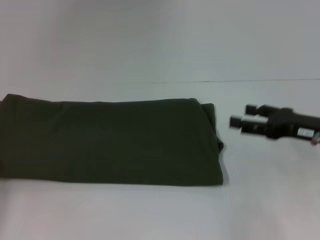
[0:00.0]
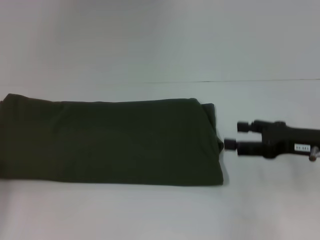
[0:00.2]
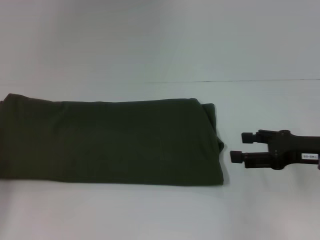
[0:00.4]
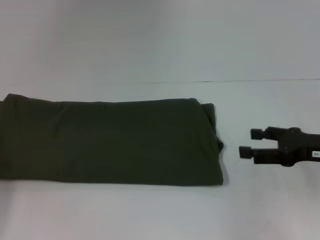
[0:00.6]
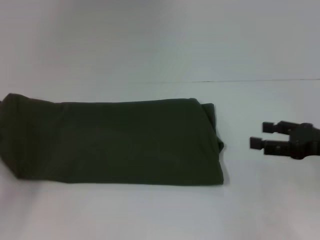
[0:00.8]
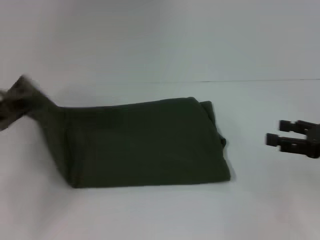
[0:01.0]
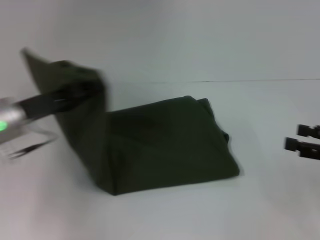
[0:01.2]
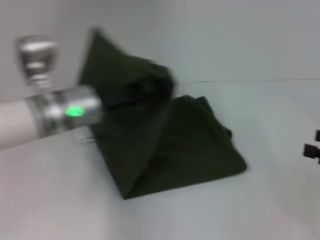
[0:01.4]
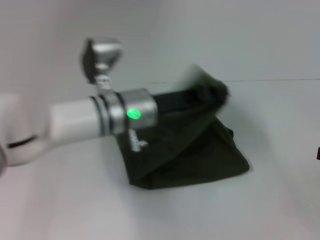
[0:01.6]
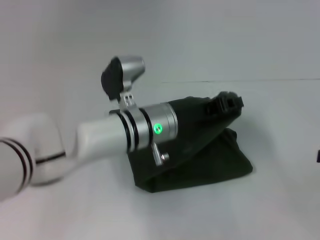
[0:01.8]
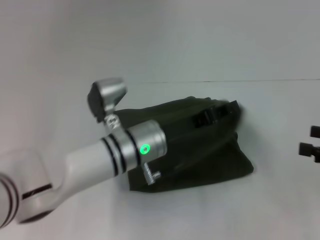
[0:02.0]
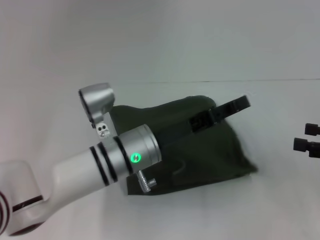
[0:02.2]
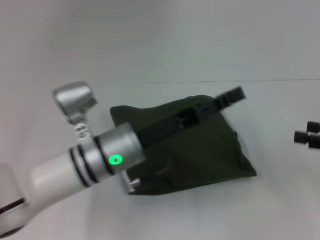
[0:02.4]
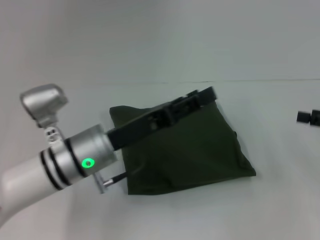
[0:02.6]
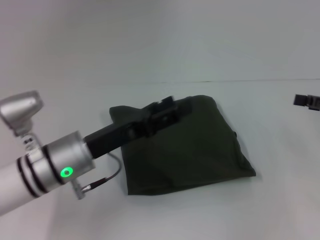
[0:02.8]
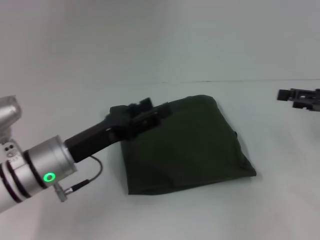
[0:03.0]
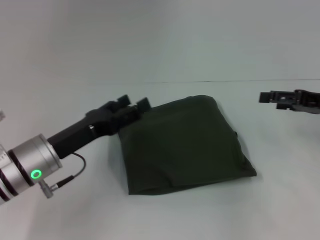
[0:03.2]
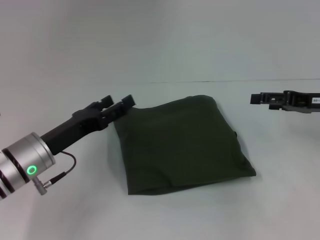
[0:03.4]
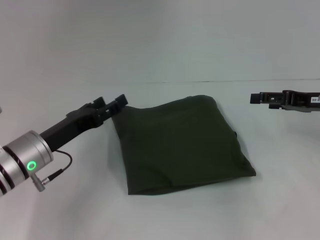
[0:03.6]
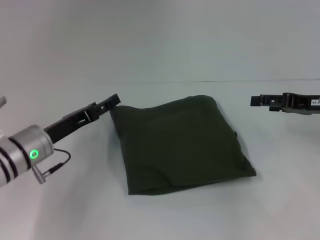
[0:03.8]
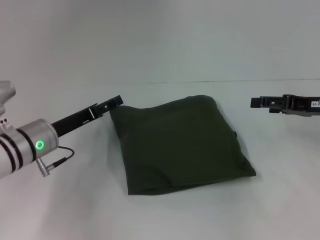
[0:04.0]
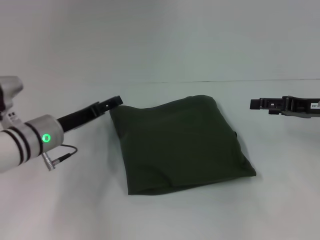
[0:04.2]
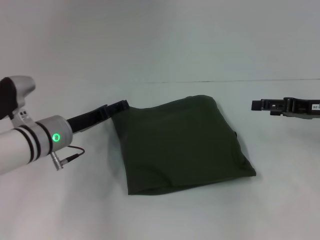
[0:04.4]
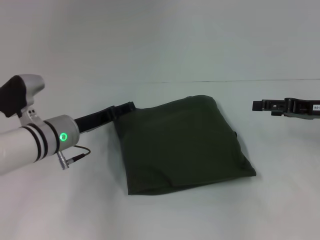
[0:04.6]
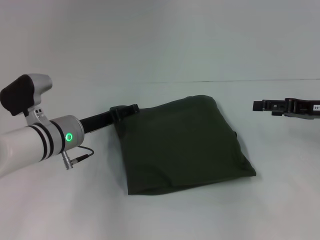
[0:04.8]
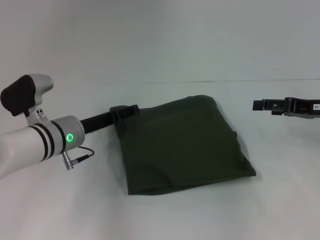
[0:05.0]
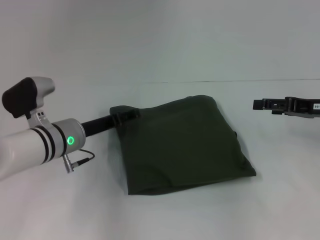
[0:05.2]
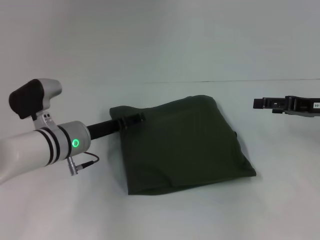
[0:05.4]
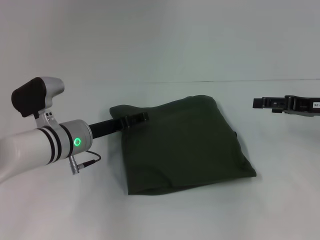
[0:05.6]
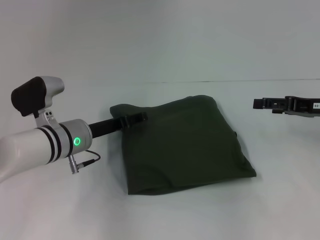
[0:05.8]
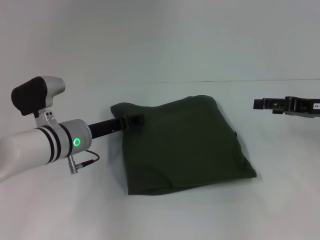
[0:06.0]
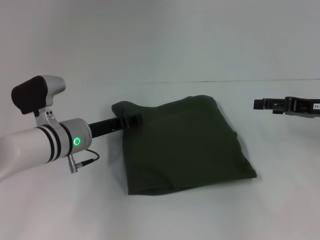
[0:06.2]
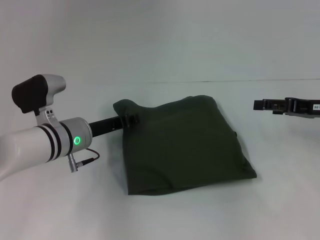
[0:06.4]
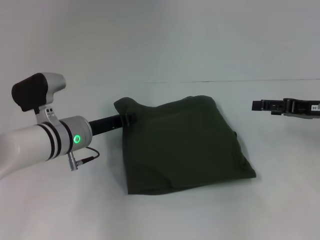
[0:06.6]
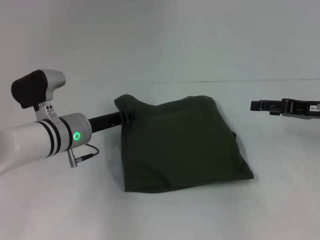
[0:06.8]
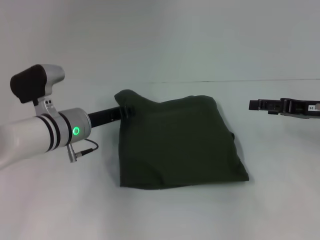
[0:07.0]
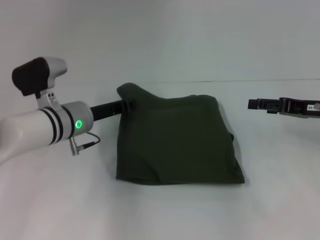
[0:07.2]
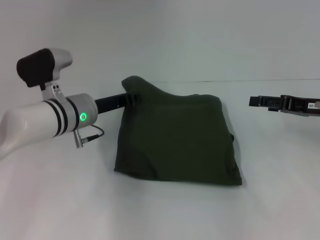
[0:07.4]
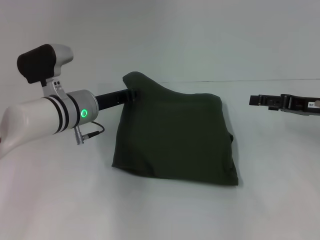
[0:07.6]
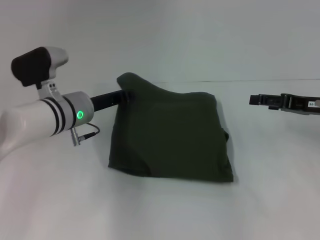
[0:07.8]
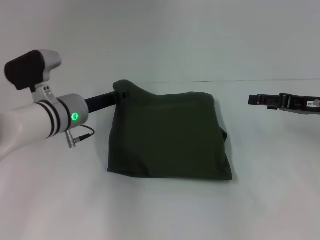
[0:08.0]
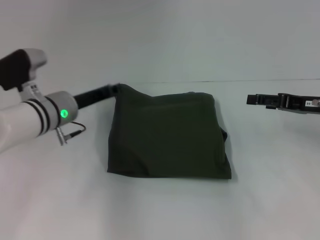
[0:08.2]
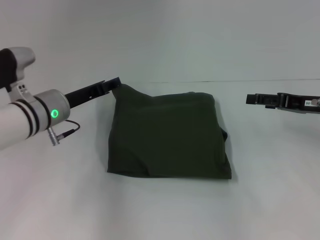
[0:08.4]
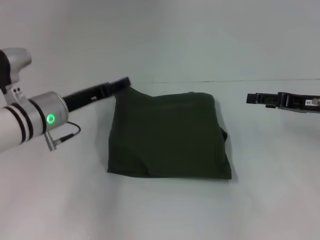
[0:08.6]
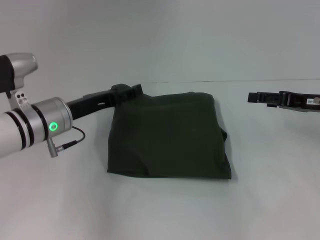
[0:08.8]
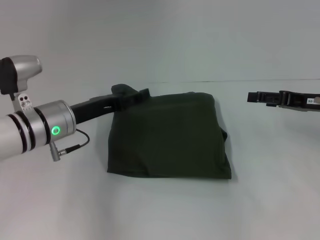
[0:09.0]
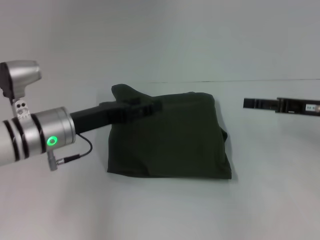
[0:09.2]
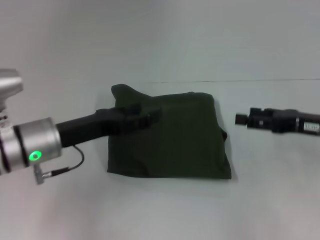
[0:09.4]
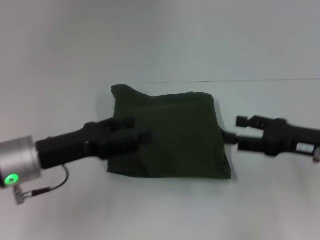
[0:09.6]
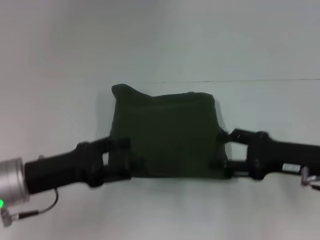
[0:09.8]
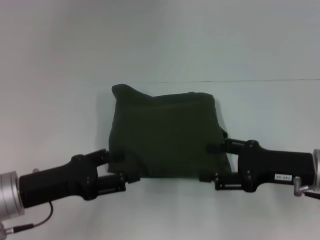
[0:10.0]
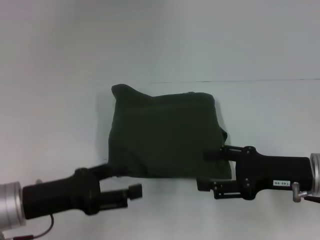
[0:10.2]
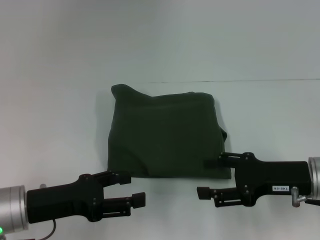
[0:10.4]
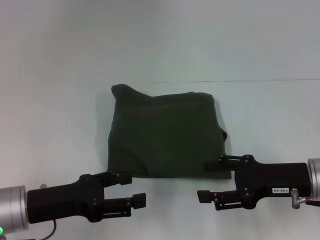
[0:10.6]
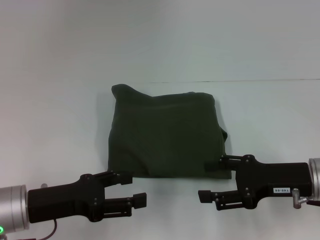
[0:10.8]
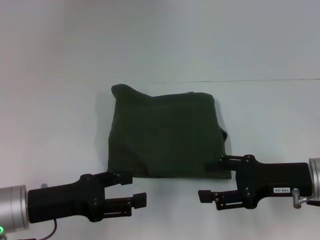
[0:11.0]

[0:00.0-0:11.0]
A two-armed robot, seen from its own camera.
Step, 0:00.0 to 0:02.2: Fold the clothes with your left hand.
0:00.0 to 0:01.6: The right gripper heads to the right and backward, covering some 15 cm. Meanwhile the left gripper heads to the right, covering roughly 30 cm.
0:01.6 to 0:03.2: The right gripper moves forward and to the left, approximately 15 cm. The left gripper moves to the left and backward, roughly 15 cm, and opens.
0:03.2 to 0:04.8: The left gripper is displaced forward by roughly 10 cm.
0:04.8 to 0:06.2: The left gripper closes up.
0:06.2 to 0:07.8: The left gripper closes up.
0:07.8 to 0:09.4: The left gripper moves backward, about 10 cm, and opens up.
0:09.4 to 0:11.0: The right gripper is displaced to the left by approximately 5 cm. Meanwhile the left gripper shifts some 5 cm backward.

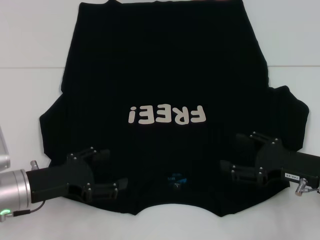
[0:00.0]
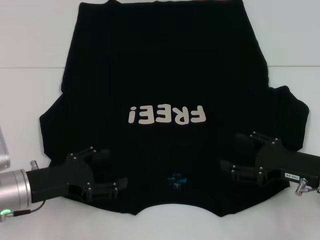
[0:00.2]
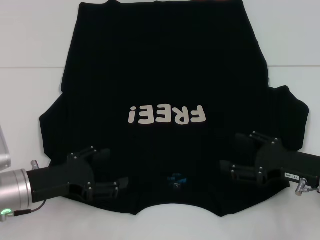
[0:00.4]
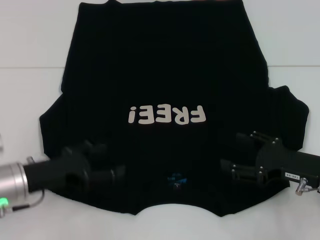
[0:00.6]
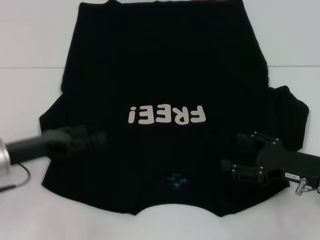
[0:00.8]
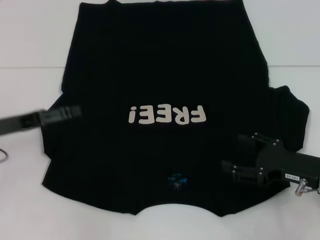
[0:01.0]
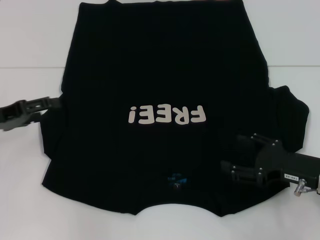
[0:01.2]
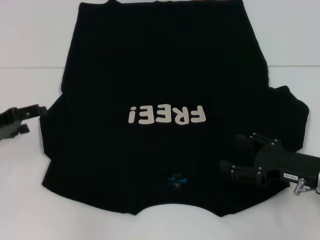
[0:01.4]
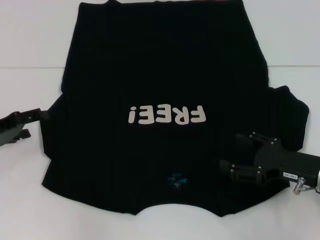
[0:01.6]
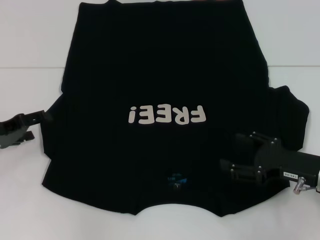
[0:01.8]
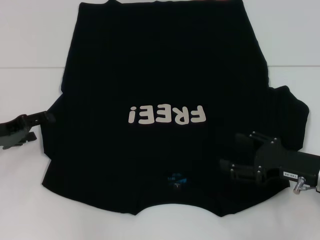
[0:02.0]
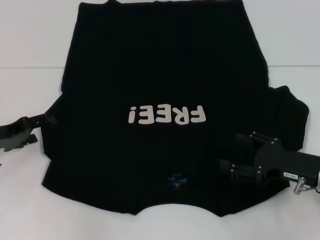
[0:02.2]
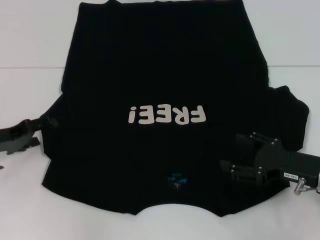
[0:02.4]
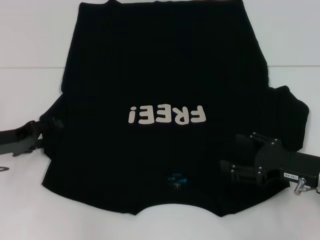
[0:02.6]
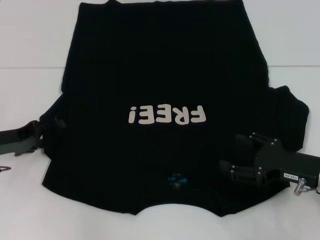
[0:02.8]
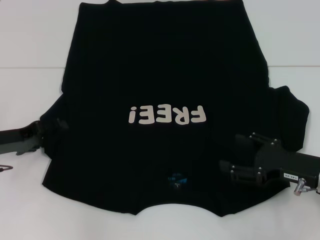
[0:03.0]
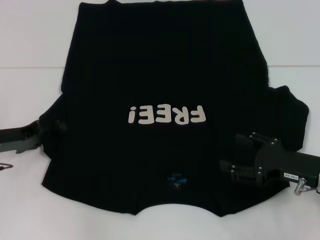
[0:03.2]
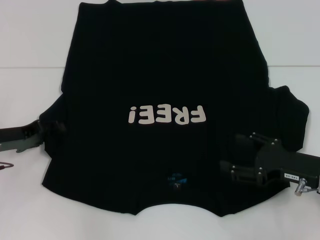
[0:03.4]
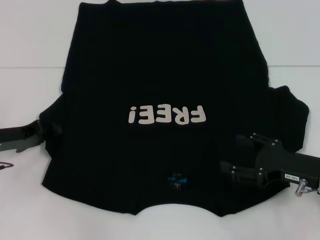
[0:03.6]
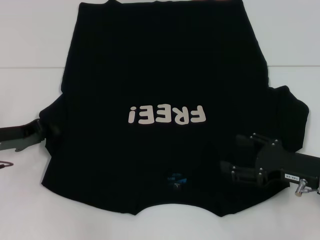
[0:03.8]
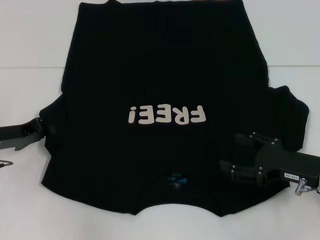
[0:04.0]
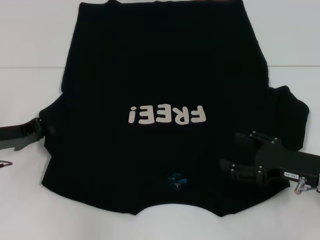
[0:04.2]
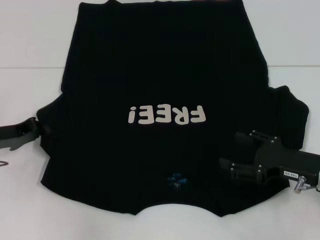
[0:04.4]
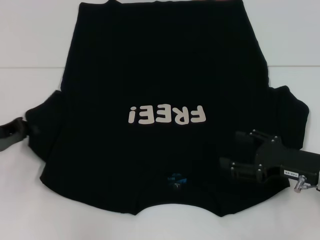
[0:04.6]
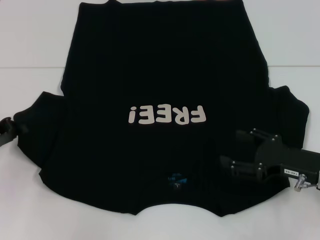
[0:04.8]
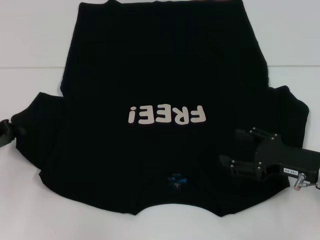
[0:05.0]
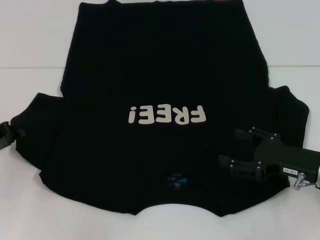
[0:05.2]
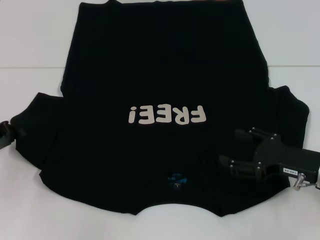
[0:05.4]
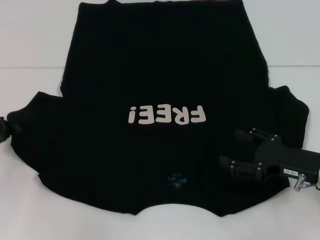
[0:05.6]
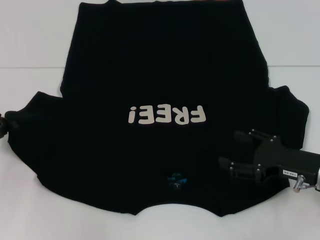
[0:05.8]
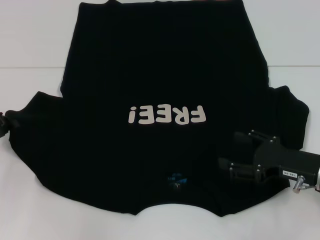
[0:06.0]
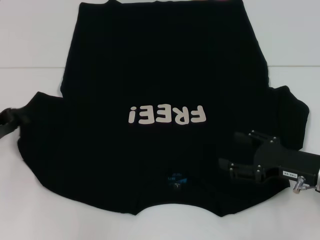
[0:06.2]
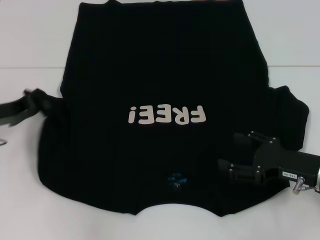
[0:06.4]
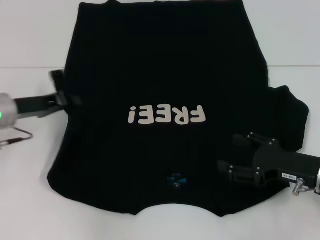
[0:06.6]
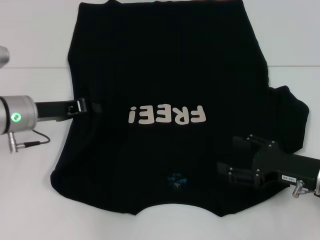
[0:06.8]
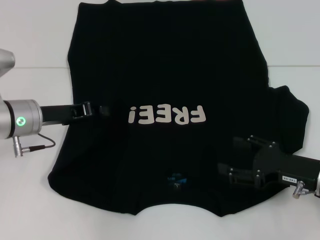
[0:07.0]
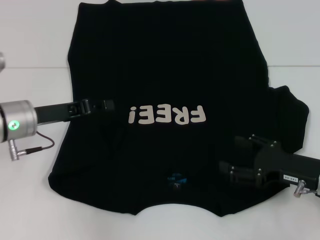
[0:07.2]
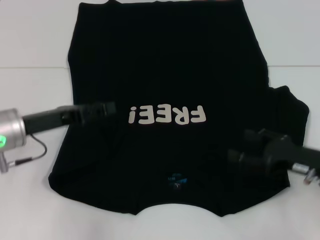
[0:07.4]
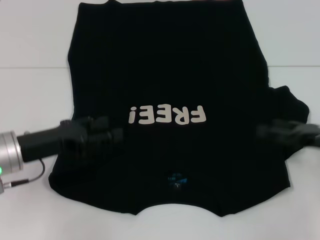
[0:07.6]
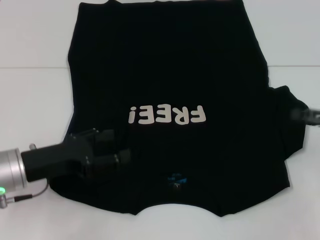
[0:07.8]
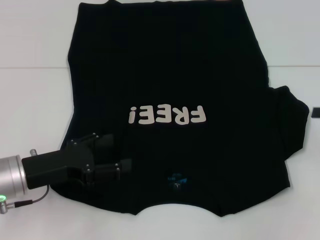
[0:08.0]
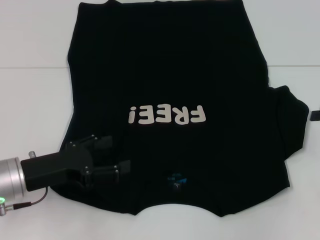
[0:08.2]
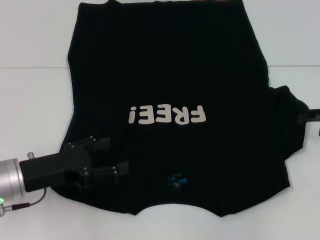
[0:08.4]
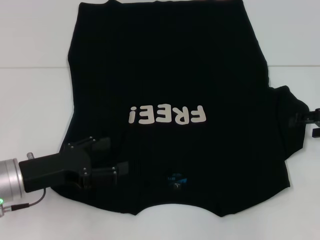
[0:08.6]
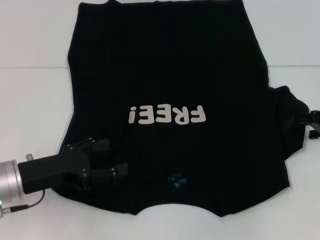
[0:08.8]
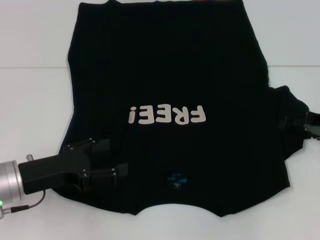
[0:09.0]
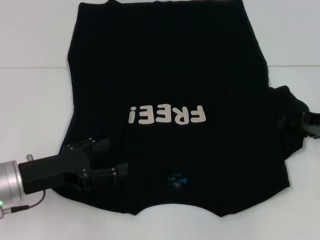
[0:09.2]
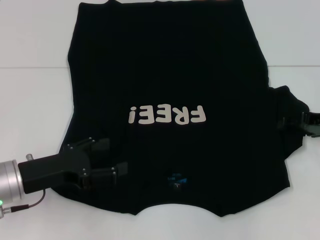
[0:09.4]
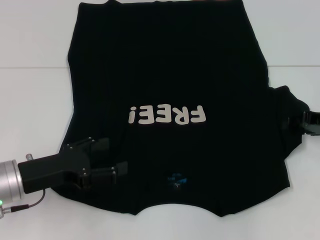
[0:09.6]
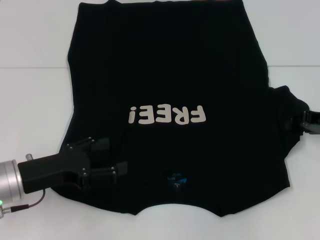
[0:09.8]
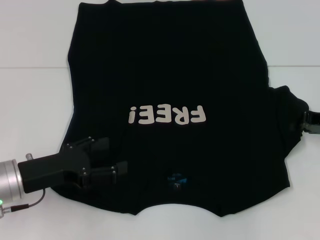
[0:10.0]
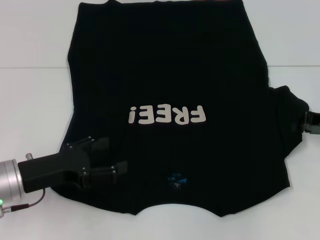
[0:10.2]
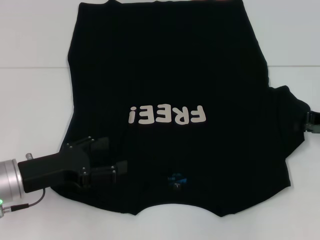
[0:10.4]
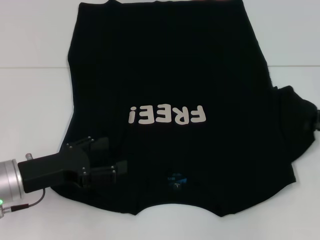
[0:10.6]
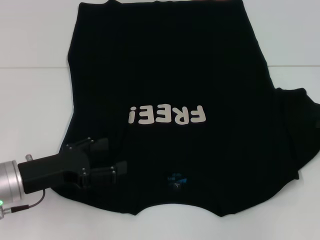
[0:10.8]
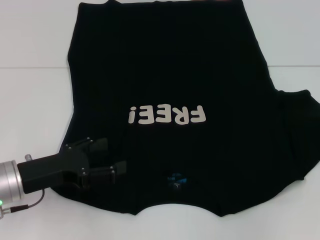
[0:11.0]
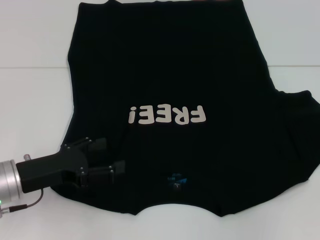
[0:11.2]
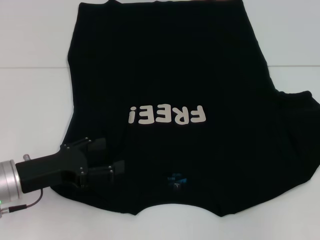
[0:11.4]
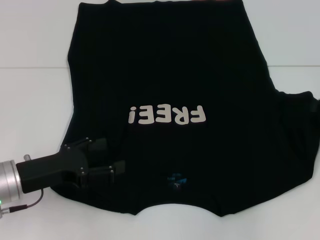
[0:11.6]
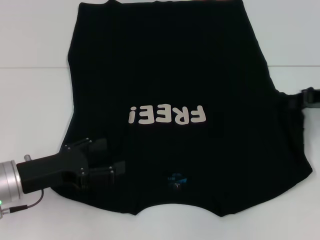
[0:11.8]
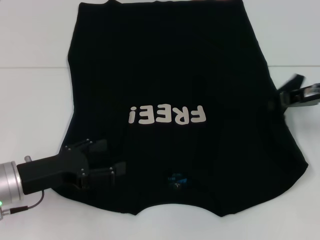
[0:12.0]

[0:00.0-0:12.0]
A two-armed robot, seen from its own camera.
Step, 0:00.0 to 0:07.0: Fold the bottom left sleeve with your left hand.
0:00.0 to 0:01.6: The left gripper travels to the left and forward by approximately 10 cm.
0:01.6 to 0:03.0: The grippers stay close to where they were, moving slightly.
0:03.0 to 0:04.4: The left gripper closes up.
0:04.4 to 0:06.0: The grippers move only a little.
0:06.0 to 0:07.6: The left gripper shifts some 10 cm to the right, and opens up, while the right gripper heads to the right, covering some 5 cm.
0:07.6 to 0:09.0: The right gripper goes about 5 cm forward. Meanwhile the left gripper opens.
0:10.4 to 0:12.0: The right gripper goes about 5 cm to the left.
